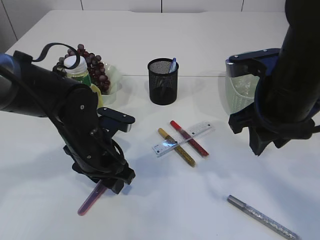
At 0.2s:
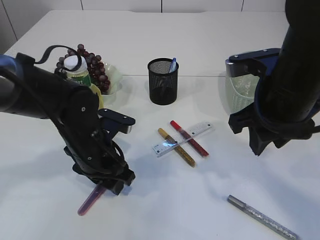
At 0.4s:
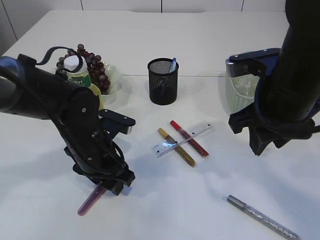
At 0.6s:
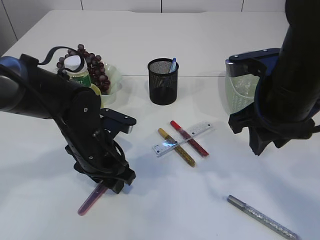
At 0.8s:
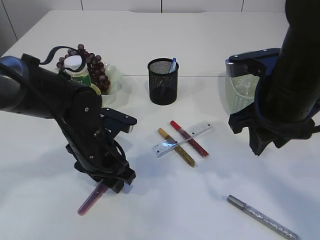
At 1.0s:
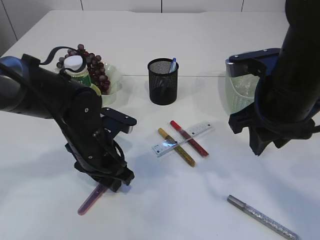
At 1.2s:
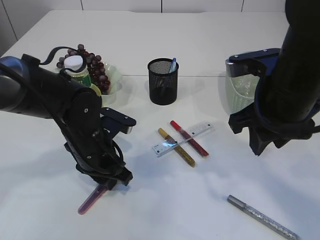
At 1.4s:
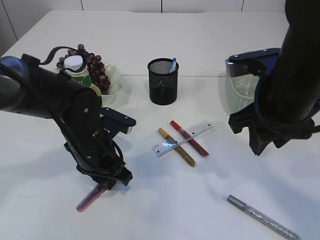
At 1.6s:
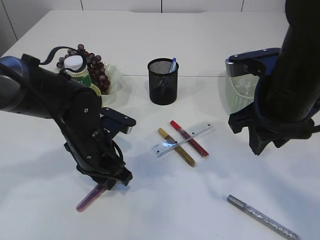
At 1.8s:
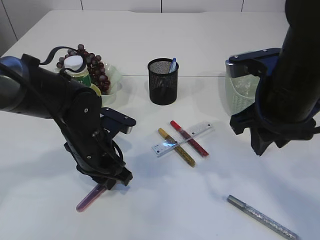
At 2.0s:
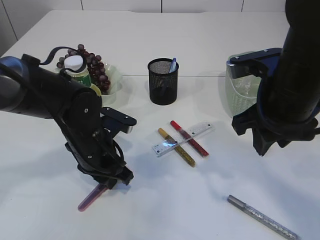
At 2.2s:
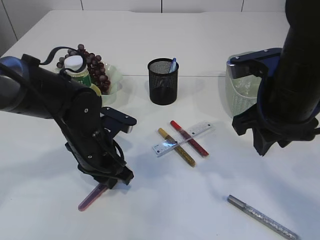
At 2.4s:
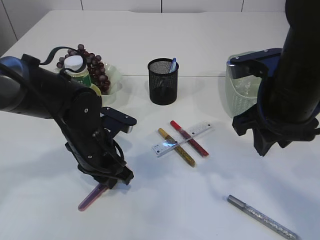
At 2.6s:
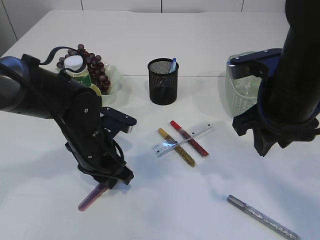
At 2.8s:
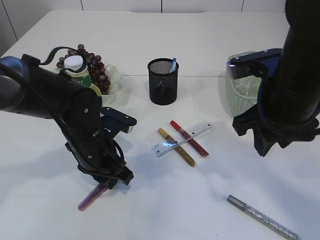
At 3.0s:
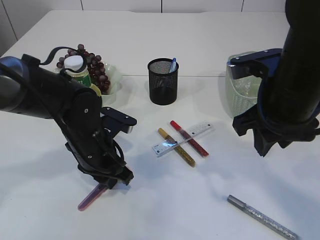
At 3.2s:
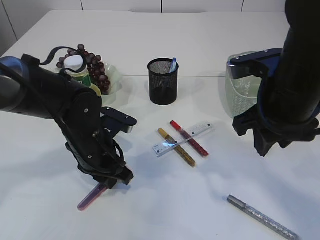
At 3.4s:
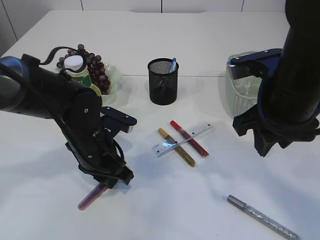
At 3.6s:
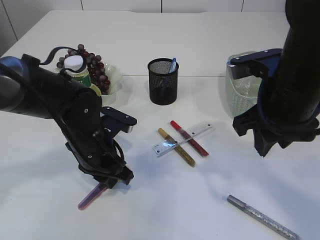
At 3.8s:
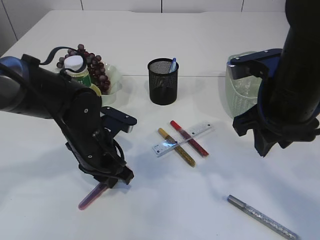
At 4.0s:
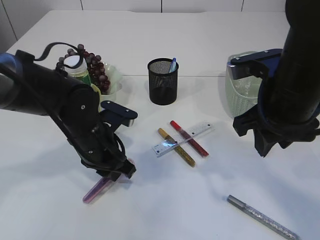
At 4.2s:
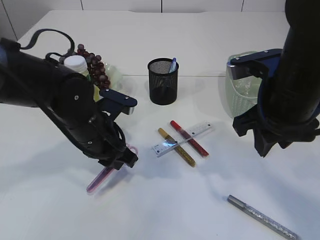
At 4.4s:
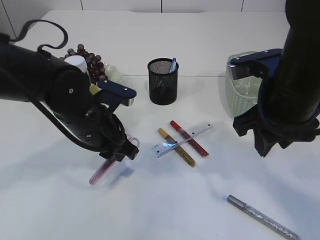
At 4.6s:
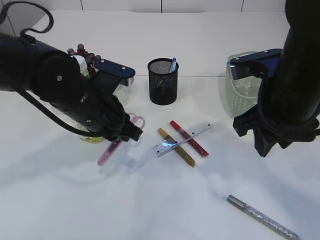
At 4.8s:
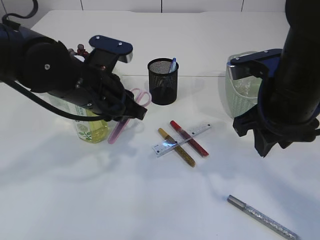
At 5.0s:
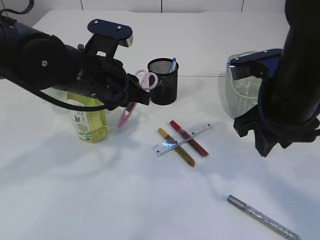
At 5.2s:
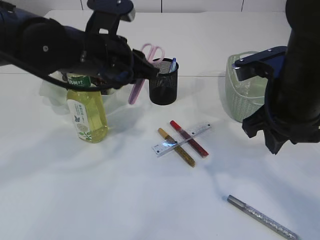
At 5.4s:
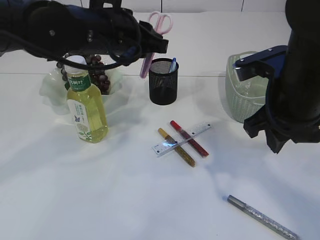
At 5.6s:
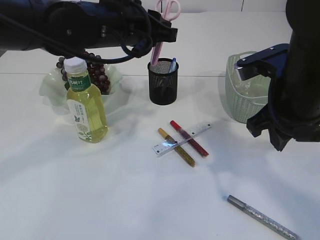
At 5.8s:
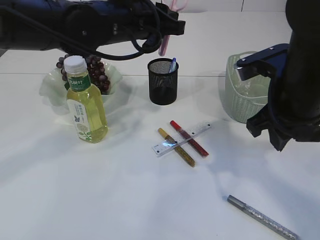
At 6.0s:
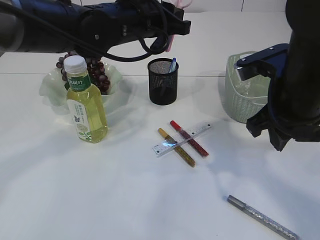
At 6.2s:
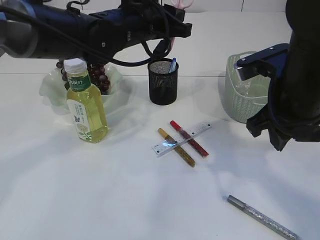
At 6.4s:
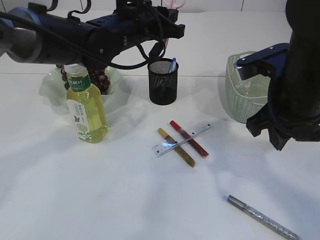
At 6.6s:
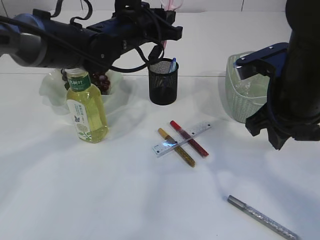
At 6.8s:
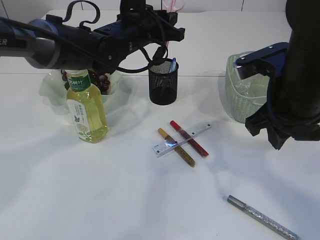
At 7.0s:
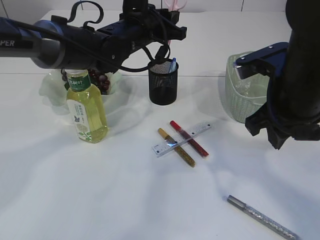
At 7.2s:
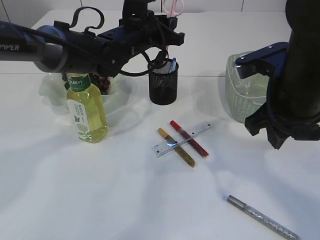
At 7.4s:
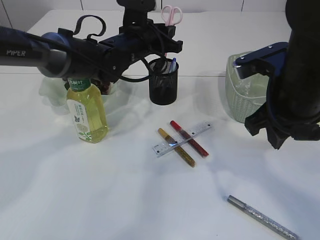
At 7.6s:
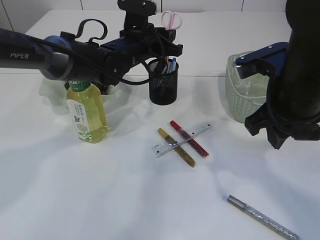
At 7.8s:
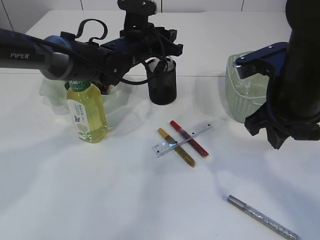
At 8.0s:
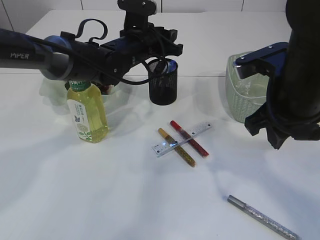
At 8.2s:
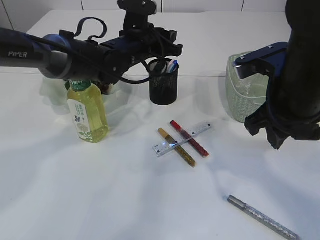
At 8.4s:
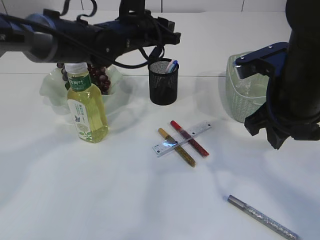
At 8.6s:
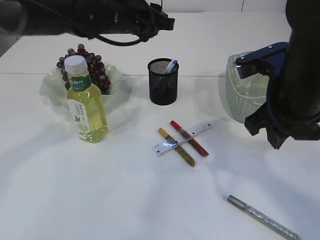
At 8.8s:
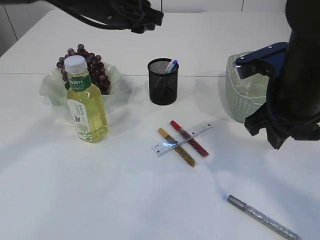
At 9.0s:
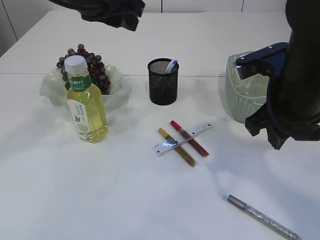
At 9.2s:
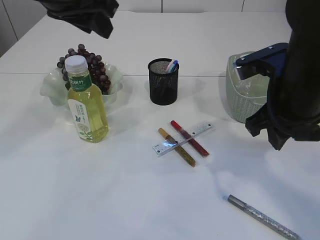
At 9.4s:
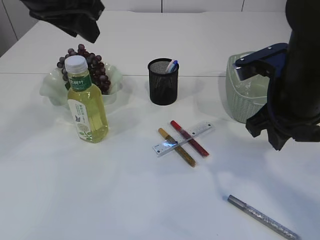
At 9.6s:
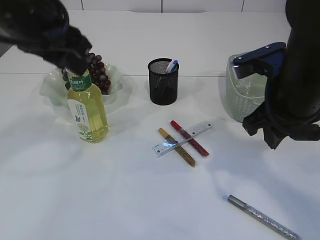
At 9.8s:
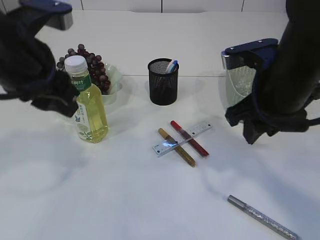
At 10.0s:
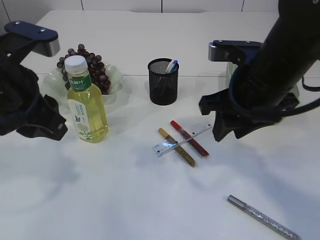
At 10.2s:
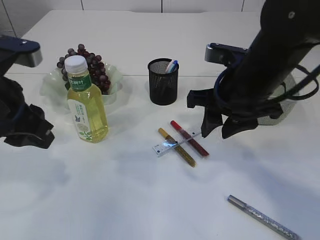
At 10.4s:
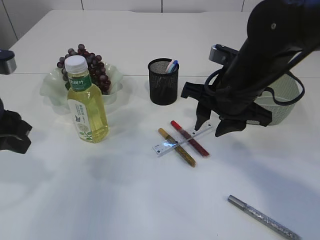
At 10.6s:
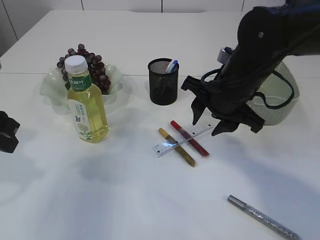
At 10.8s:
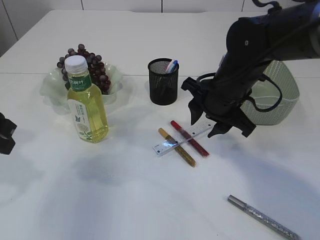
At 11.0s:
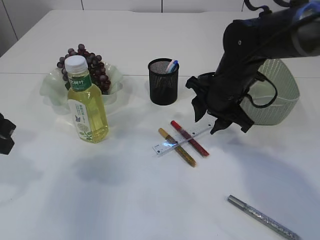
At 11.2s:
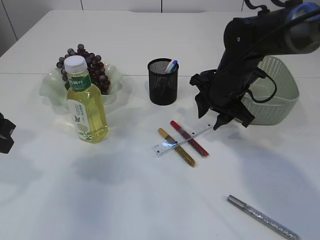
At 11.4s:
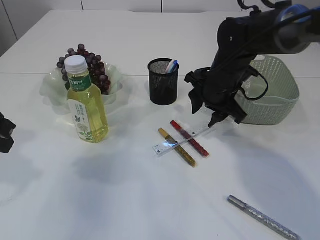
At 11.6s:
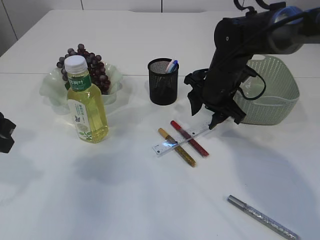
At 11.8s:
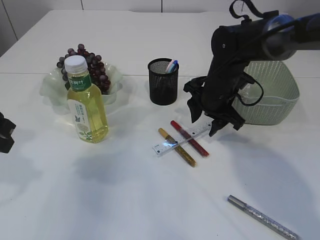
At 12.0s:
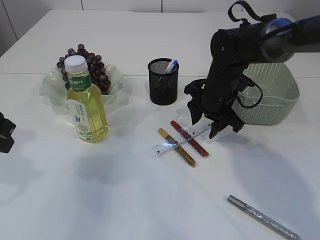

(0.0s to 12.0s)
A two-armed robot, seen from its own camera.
Step, 0.0s - 4.6s: pick up the pink scissors.
Step, 4.8s - 8.6s: Place the pink scissors into the pen holder.
0.0s - 1.6s: The left gripper closes up.
1.6s - 3.0s: Both grippers stay put.
3.0s - 4.4s: The grippers make only small movements.
4.4s - 6.0s: The left gripper is displaced upward, forward and to the right by about 15 cm.
6.0s - 7.6s: The left gripper goes approximately 10 cm downward and forward.
7.6s - 9.0s: The left gripper goes about 15 cm upward and backward.
9.0s - 10.4s: The left gripper goes about 20 cm backward, to the left and downward, while the right gripper heads to the left, covering about 5 cm.
10.4s - 12.0s: The right gripper shifts roughly 15 cm forward and downward.

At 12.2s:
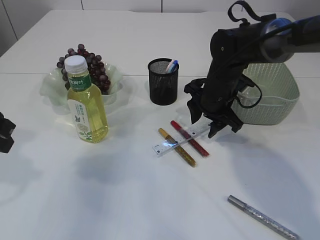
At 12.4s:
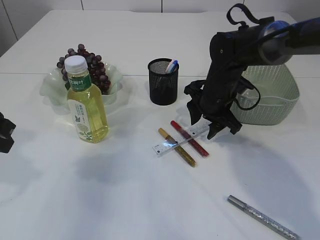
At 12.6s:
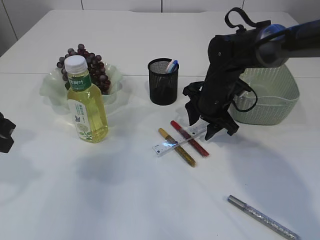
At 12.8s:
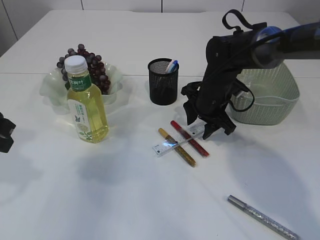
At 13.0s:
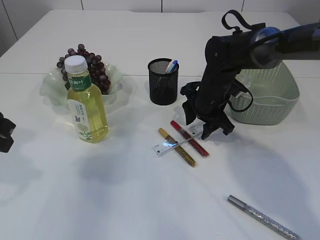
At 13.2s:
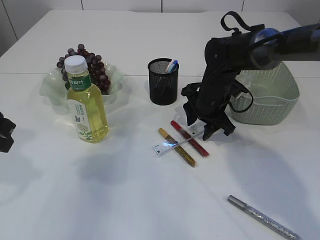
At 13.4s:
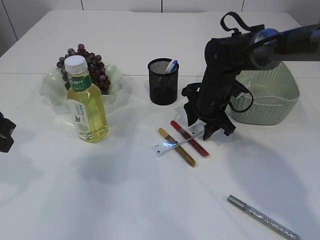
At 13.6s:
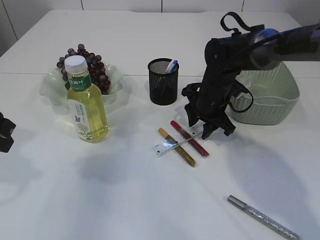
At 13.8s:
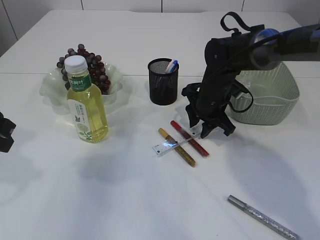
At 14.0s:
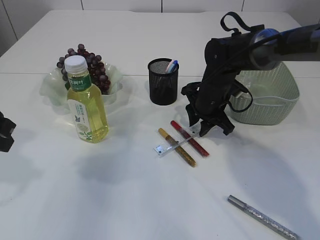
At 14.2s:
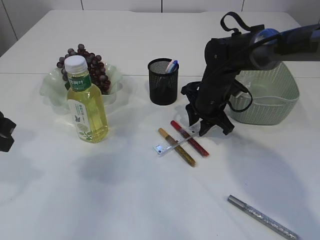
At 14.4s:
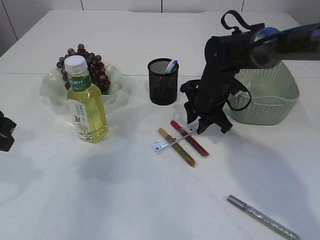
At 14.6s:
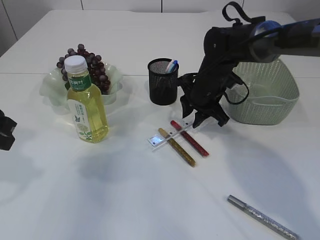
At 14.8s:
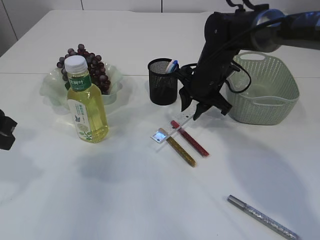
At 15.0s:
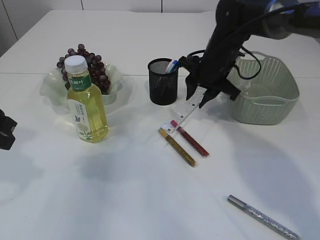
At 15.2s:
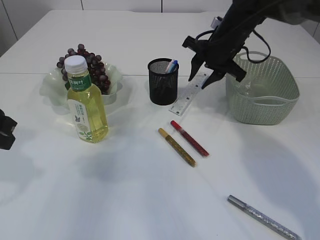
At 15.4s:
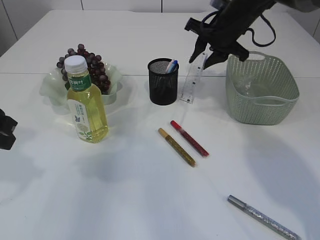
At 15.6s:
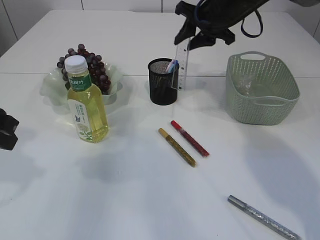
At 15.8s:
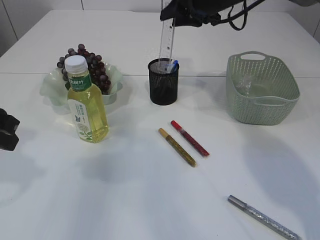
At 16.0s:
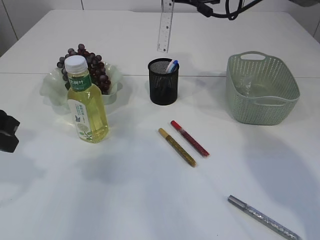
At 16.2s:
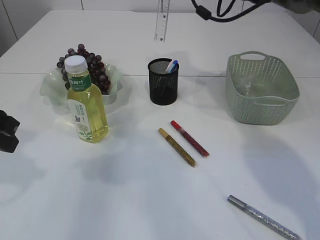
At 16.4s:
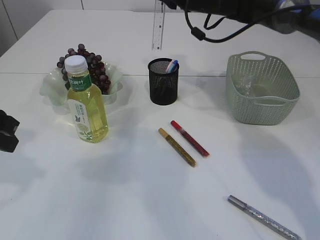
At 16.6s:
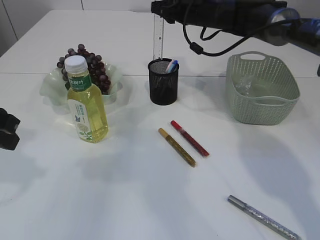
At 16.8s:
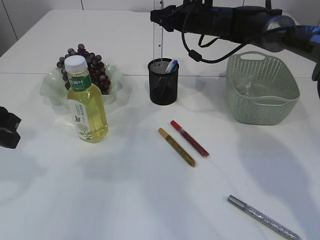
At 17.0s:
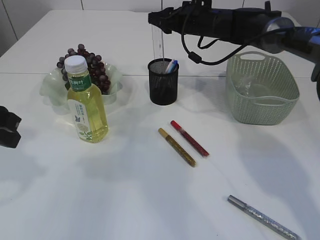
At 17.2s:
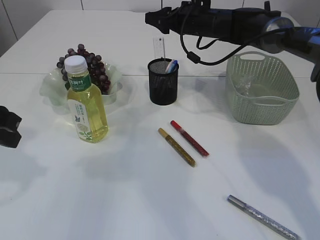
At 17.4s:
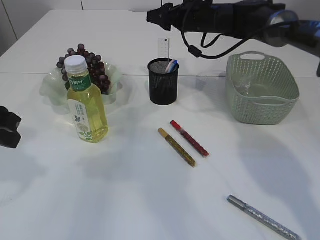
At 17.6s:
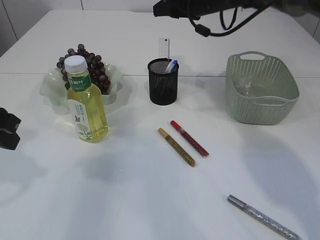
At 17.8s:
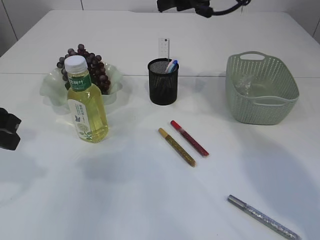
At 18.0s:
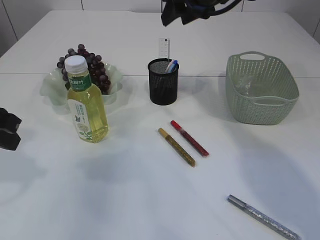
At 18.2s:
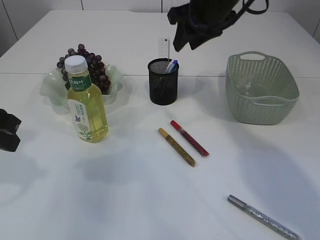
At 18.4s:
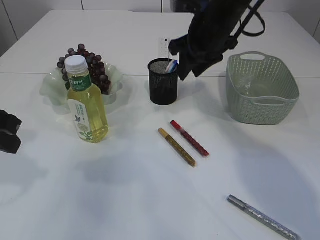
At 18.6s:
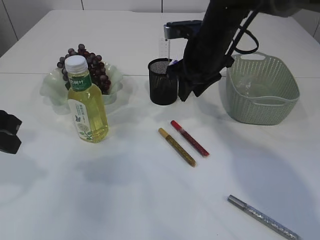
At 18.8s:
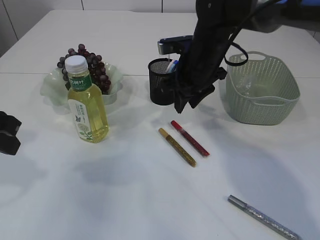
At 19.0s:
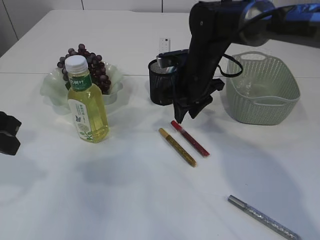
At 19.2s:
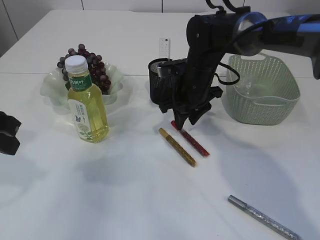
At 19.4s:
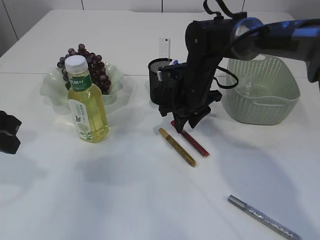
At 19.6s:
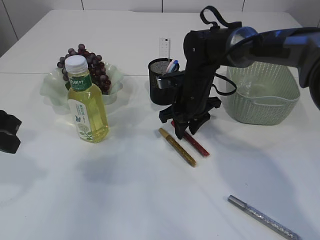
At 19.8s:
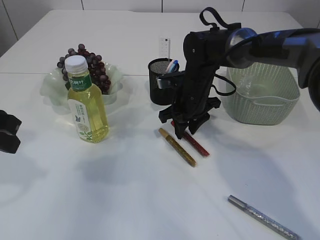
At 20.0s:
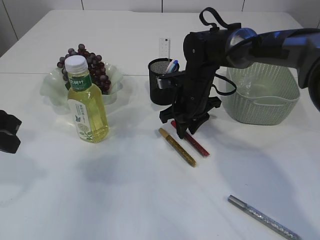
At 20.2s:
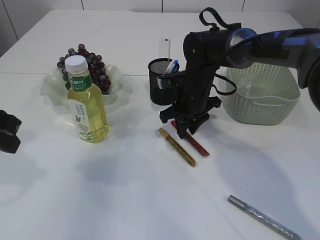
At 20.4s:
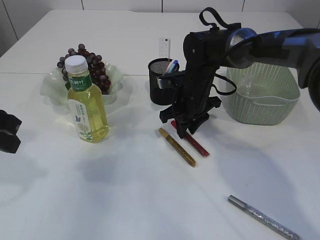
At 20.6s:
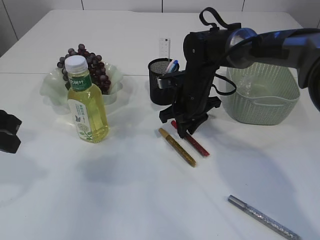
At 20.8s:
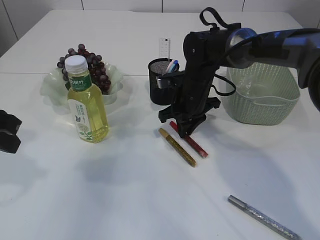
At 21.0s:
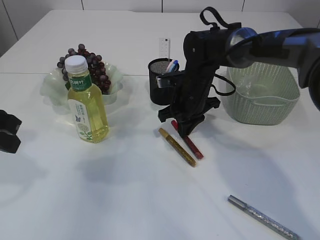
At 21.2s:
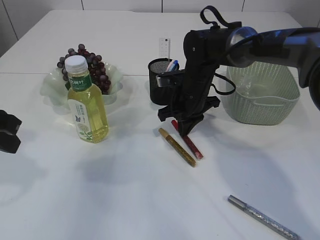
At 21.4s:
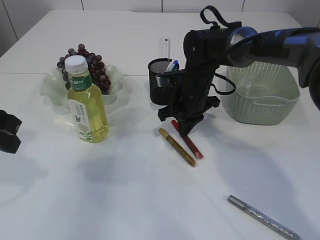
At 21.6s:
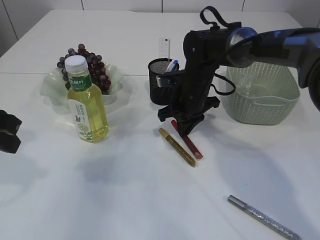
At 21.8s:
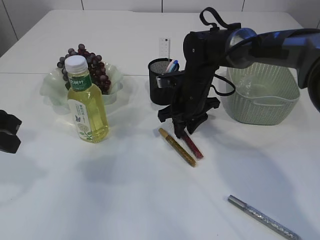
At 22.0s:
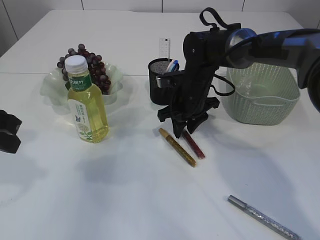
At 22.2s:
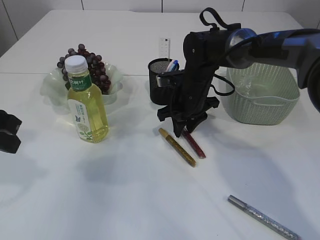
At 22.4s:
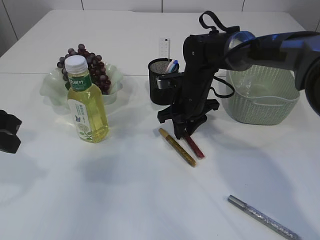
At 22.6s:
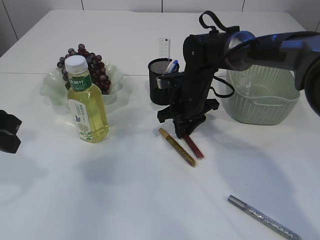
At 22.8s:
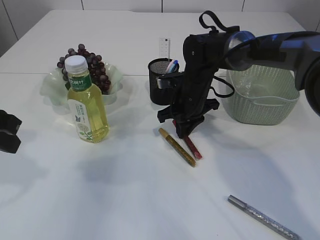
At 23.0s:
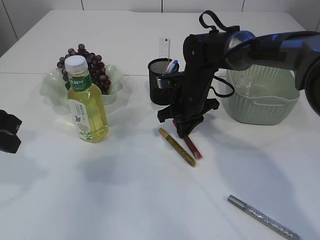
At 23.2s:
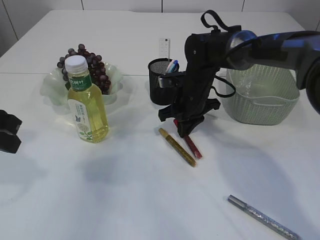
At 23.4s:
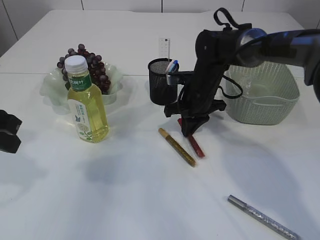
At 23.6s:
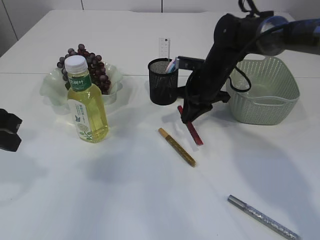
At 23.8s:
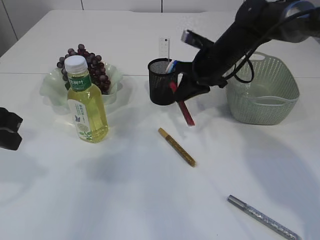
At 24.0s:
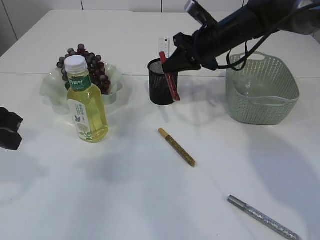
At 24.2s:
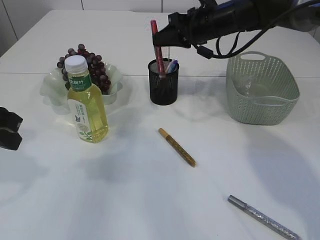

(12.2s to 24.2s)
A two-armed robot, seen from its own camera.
Step, 12.2s - 15.0s: pick up the ruler.
Step, 15.2s - 17.4s: Place the ruler into the pen holder.
Step, 17.6s - 23.8s: pick up the red glue.
12.2s - 13.8s: There are only small adjustments of the grippers.
13.8s - 15.2s: The right gripper heads upward, covering roughly 10 cm.
15.2s - 16.6s: The right gripper moves forward, some 5 cm, and travels upward and back again, roughly 10 cm each way.
16.6s - 18.2s: The right gripper moves backward and upward, approximately 10 cm.
18.2s - 19.8s: The right gripper heads downward, covering some 20 cm.
19.8s - 21.2s: The right gripper closes up.
21.2s - 22.6s: Both grippers stay about where they are.
22.6s - 24.2s: The right gripper is displaced upward by about 10 cm.
